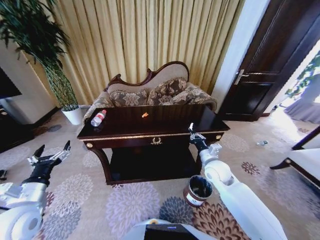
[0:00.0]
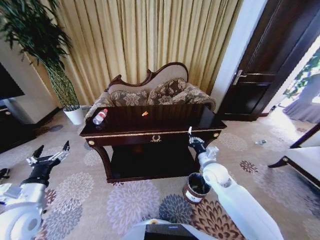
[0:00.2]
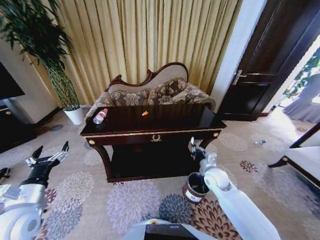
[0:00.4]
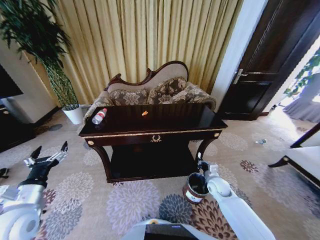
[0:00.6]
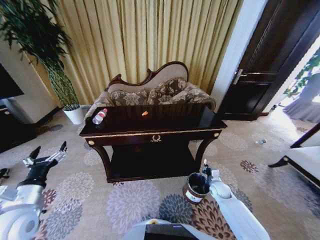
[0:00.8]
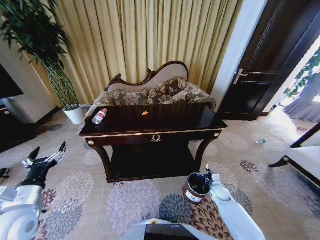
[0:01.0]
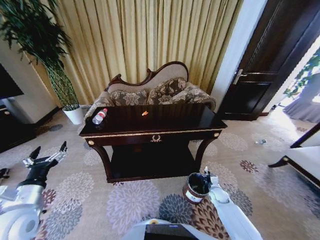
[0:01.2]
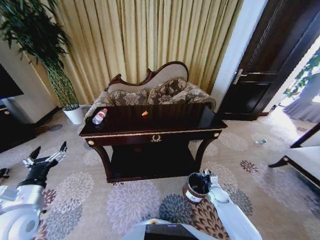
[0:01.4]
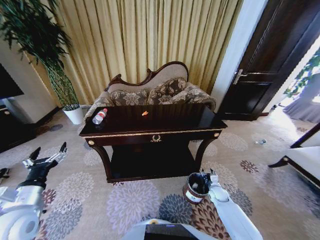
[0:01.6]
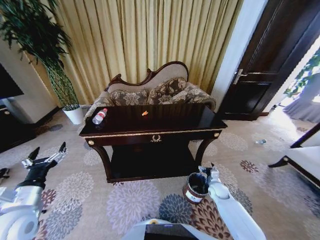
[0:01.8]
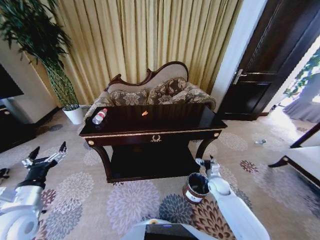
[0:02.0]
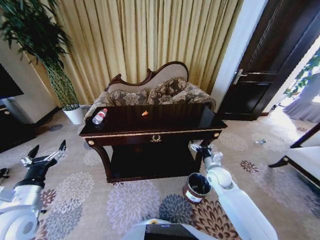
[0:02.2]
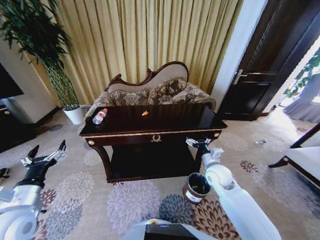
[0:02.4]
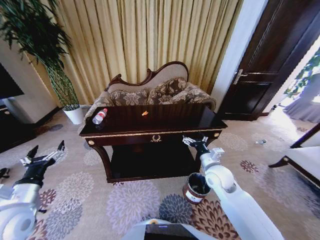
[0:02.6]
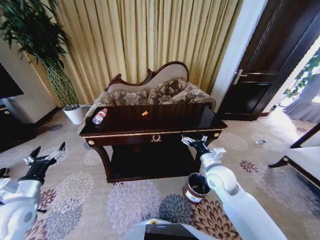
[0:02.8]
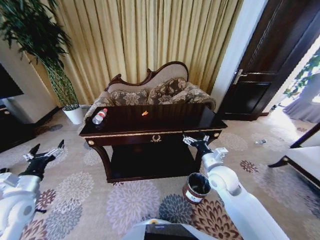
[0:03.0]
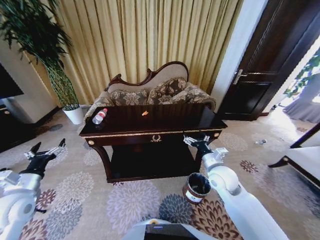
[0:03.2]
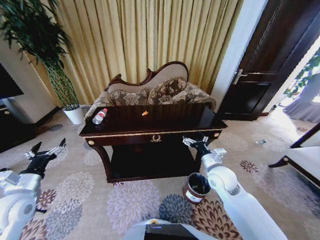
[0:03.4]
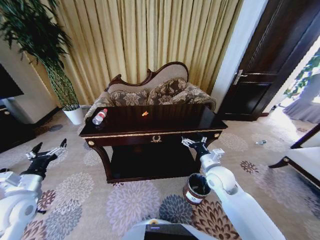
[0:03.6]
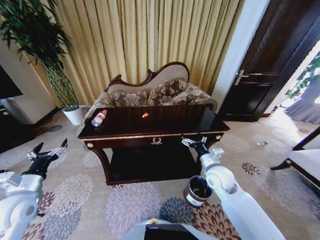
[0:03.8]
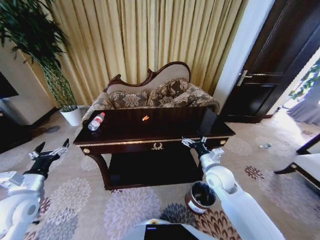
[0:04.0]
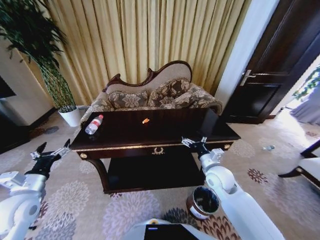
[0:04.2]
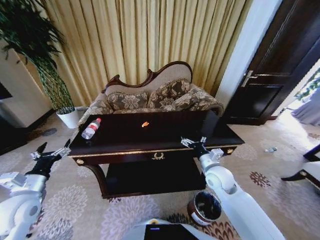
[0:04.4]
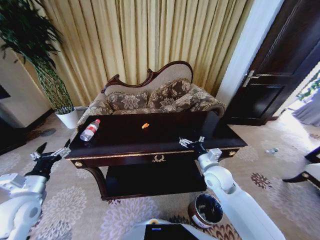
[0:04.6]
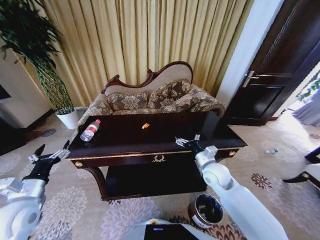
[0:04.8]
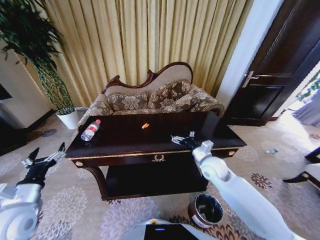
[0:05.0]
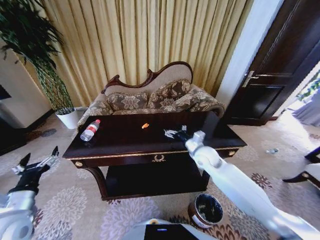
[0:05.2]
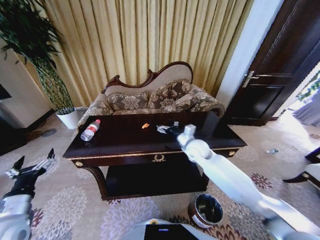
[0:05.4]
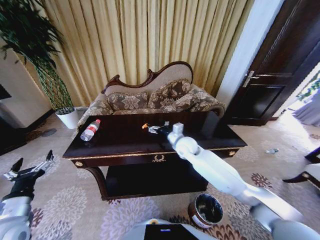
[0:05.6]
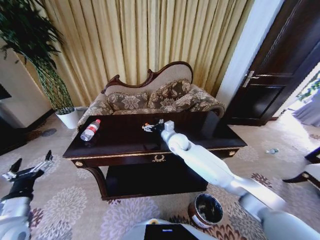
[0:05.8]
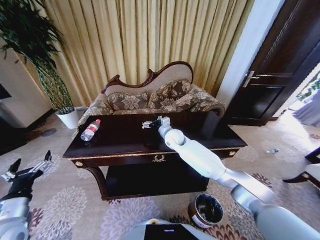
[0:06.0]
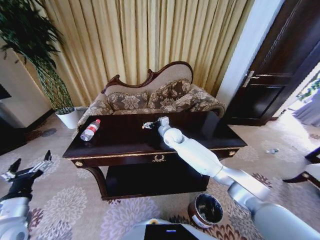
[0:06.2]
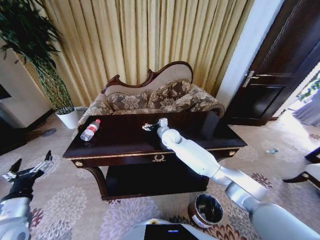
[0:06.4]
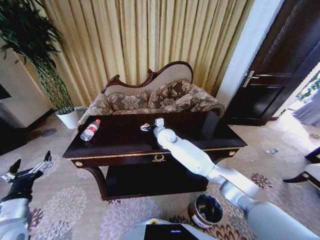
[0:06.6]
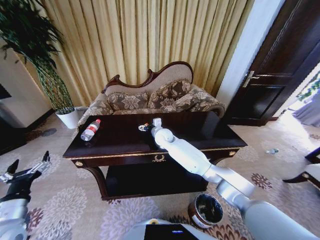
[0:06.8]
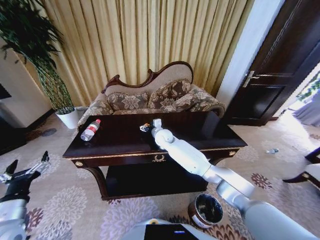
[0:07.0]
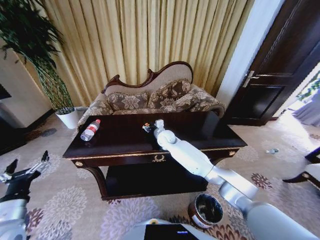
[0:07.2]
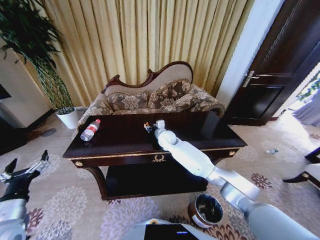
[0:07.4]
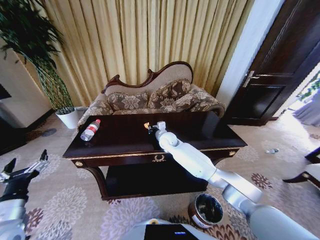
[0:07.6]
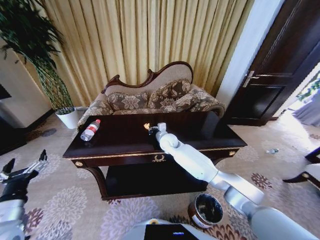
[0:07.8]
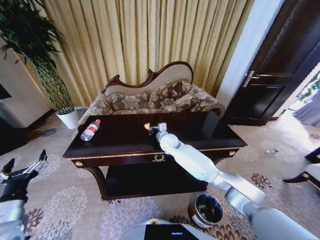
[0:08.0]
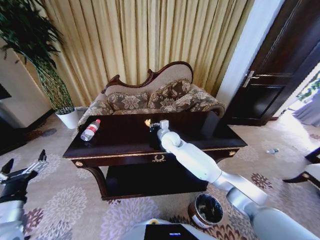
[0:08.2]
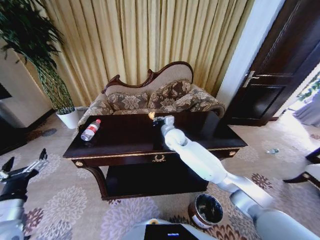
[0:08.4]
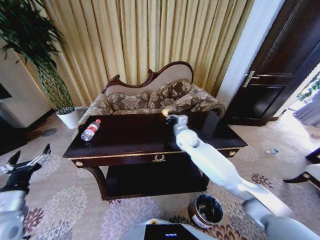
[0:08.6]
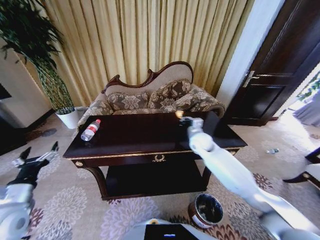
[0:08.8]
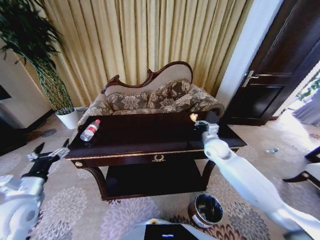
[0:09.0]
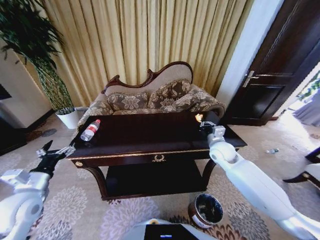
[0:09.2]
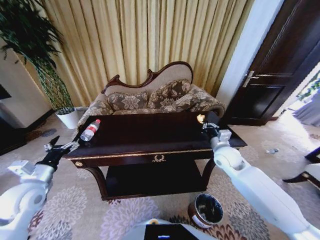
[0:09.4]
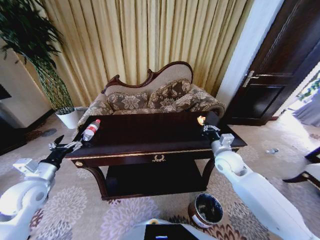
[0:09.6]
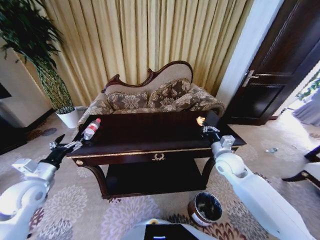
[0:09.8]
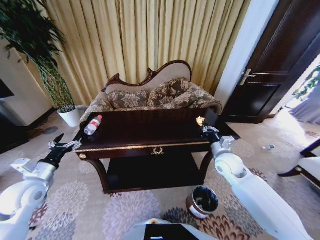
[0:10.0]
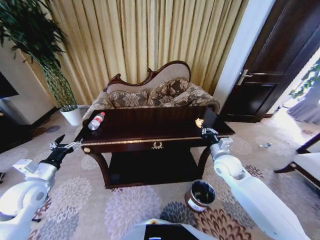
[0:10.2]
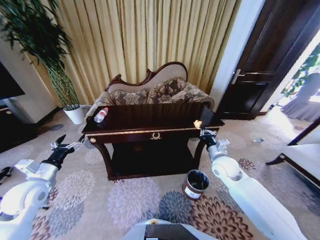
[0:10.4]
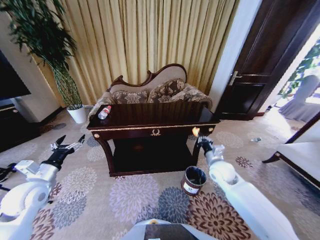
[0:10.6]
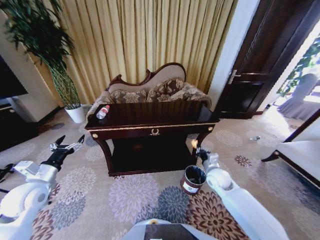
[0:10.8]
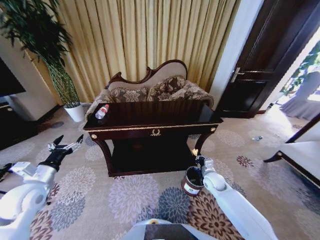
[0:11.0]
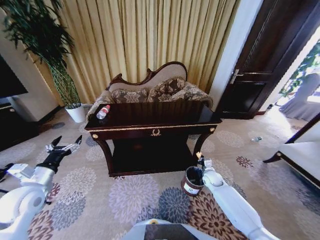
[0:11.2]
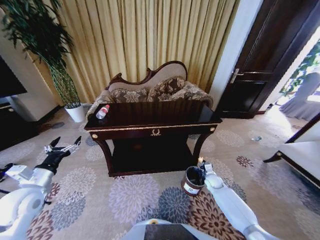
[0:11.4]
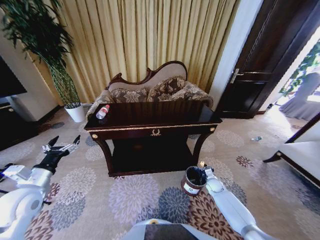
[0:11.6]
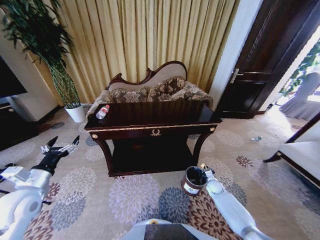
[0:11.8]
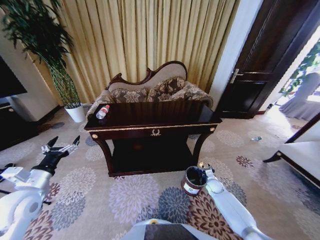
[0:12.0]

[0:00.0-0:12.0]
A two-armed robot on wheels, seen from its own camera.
Task of the whole recording: Move to the front of the table and place the trash on the table into the trash bin.
0:00.0 to 0:01.6: The right gripper shifts approximately 30 cm downward and to the right, and opens.
0:01.6 to 0:03.0: The right gripper shifts about 30 cm upward and to the left, and opens its fingers; the left gripper ends up about 5 cm from where it was.
0:04.4 to 0:06.0: The left gripper goes approximately 5 cm backward; the right gripper is displaced forward and to the left by approximately 25 cm.
0:06.0 to 0:07.6: The right gripper closes its fingers.
0:07.6 to 0:09.0: The right gripper travels to the right by some 20 cm; the left gripper moves forward, about 5 cm.
0:09.0 to 0:10.4: The left gripper heads forward, covering approximately 5 cm, while the right gripper goes approximately 10 cm backward.
0:10.4 to 0:12.0: The right gripper goes about 30 cm downward.

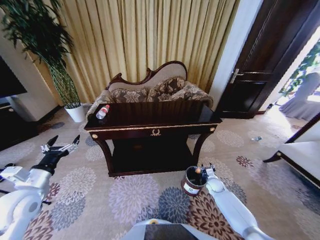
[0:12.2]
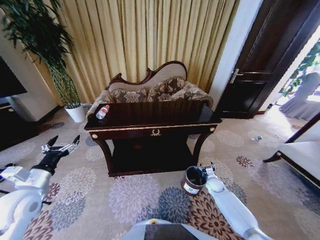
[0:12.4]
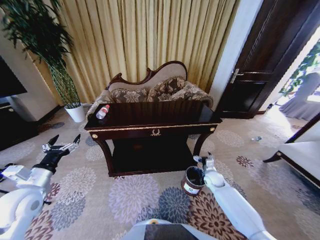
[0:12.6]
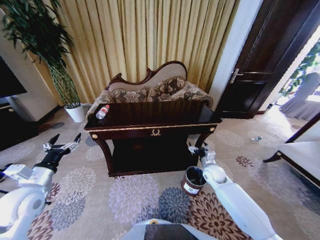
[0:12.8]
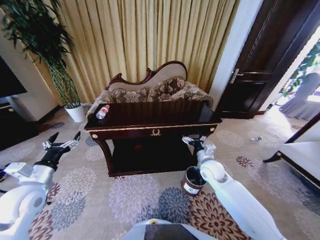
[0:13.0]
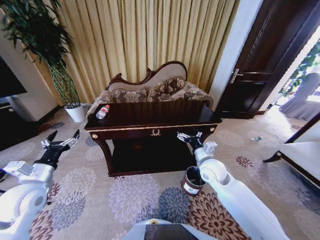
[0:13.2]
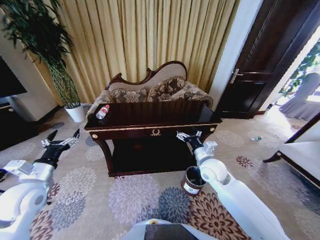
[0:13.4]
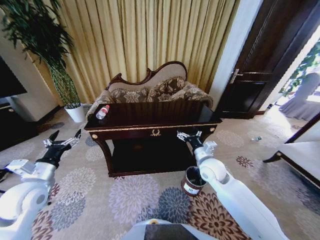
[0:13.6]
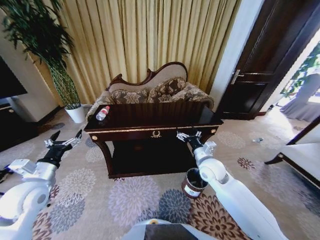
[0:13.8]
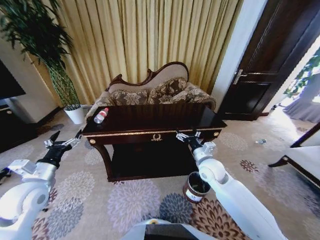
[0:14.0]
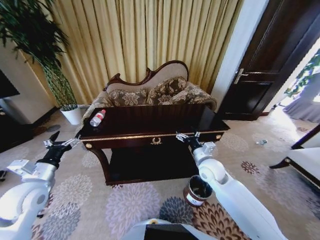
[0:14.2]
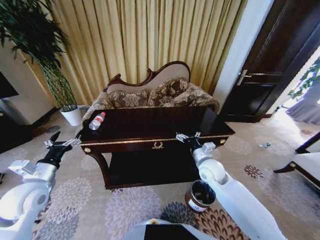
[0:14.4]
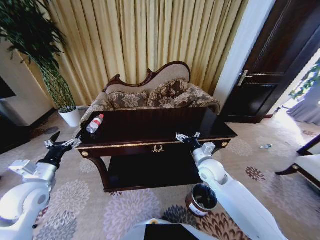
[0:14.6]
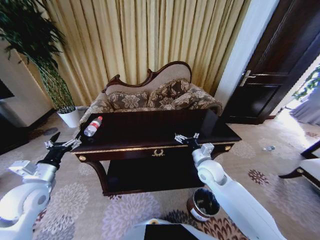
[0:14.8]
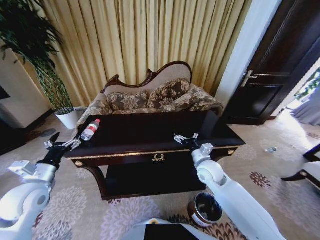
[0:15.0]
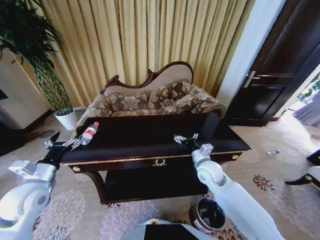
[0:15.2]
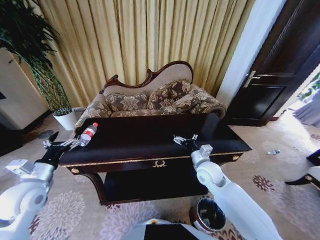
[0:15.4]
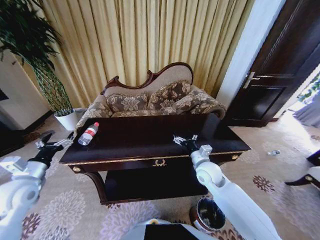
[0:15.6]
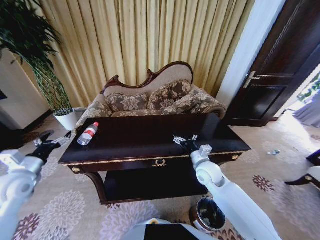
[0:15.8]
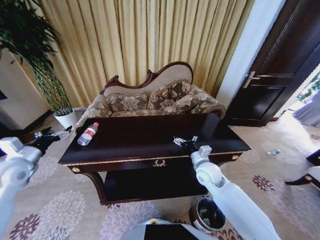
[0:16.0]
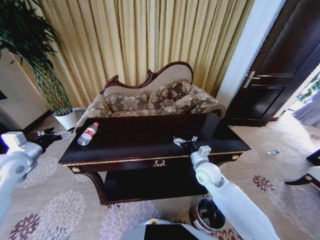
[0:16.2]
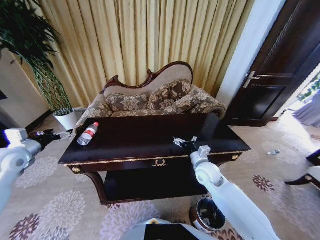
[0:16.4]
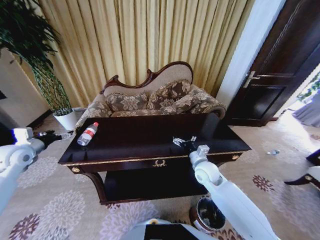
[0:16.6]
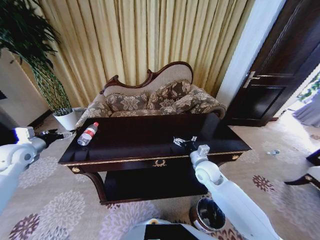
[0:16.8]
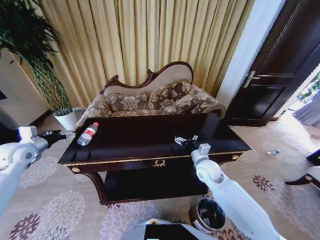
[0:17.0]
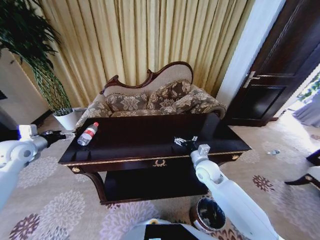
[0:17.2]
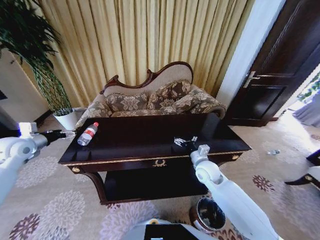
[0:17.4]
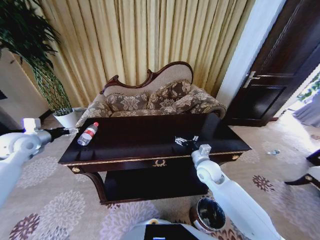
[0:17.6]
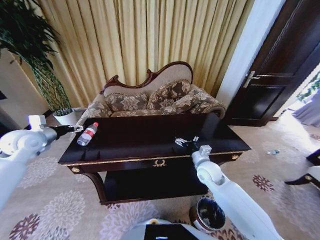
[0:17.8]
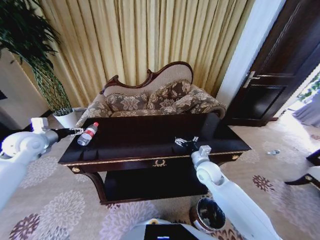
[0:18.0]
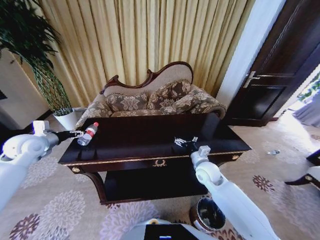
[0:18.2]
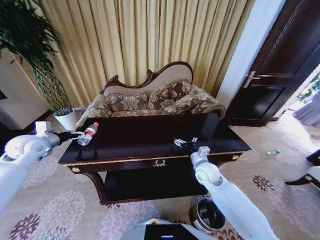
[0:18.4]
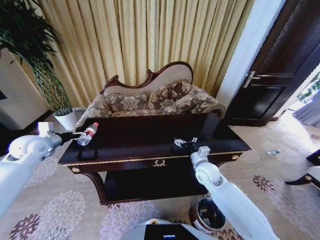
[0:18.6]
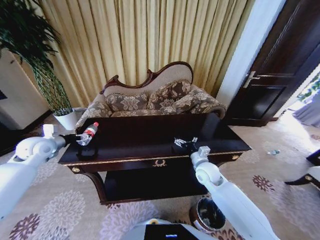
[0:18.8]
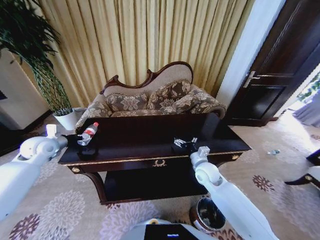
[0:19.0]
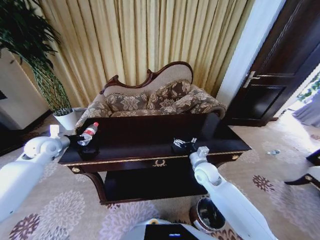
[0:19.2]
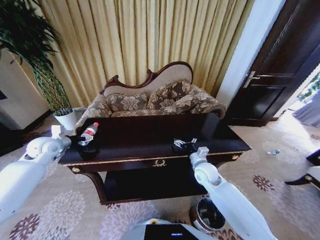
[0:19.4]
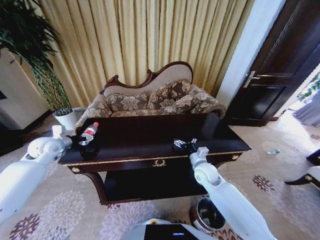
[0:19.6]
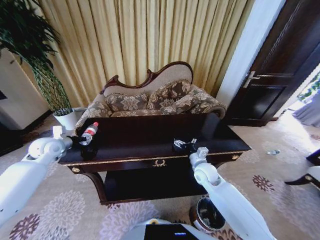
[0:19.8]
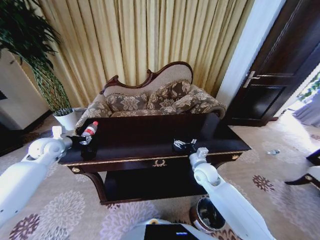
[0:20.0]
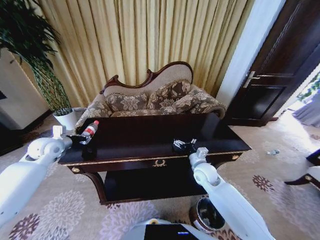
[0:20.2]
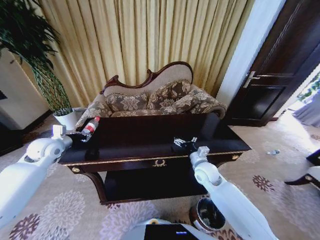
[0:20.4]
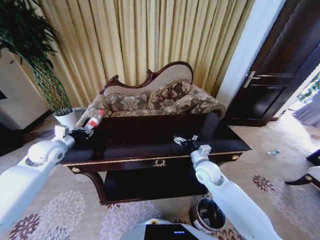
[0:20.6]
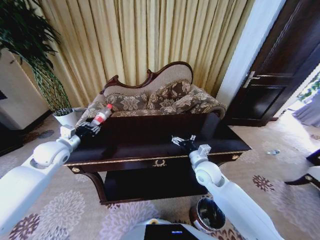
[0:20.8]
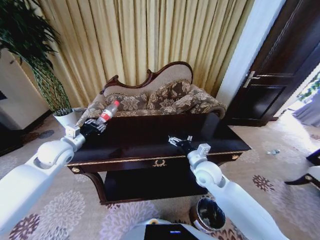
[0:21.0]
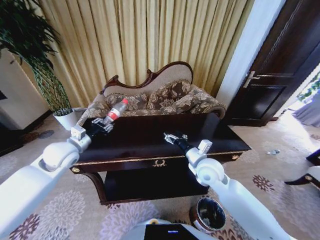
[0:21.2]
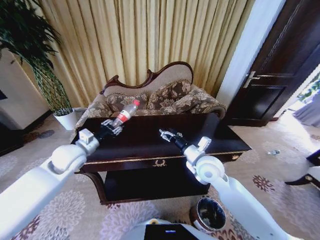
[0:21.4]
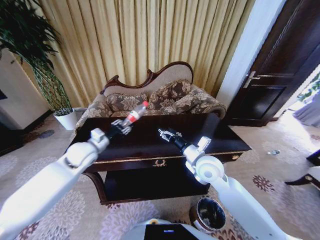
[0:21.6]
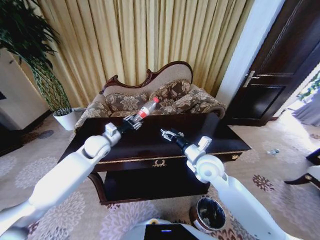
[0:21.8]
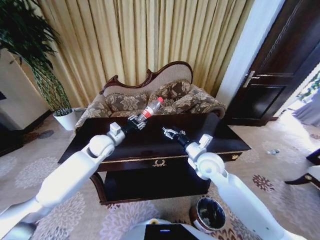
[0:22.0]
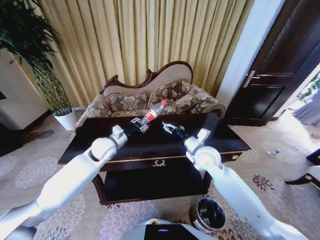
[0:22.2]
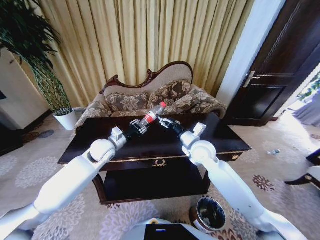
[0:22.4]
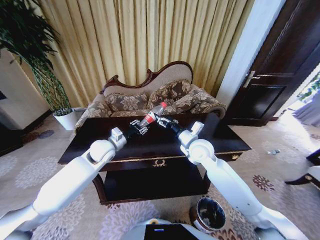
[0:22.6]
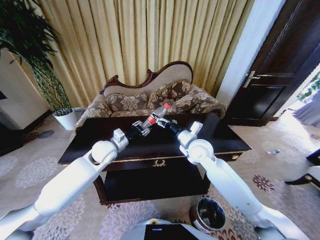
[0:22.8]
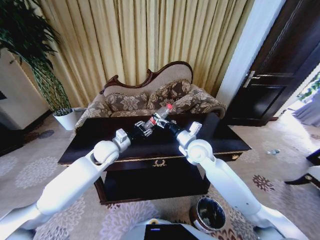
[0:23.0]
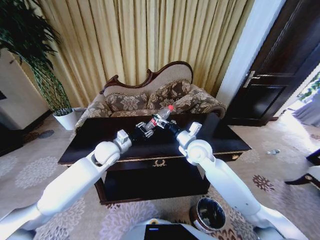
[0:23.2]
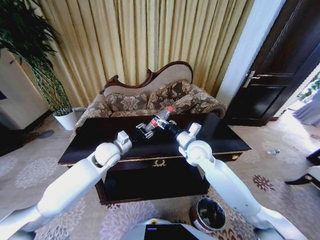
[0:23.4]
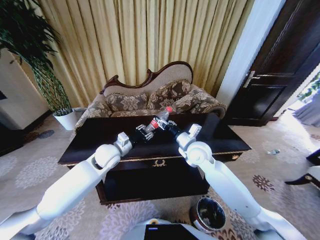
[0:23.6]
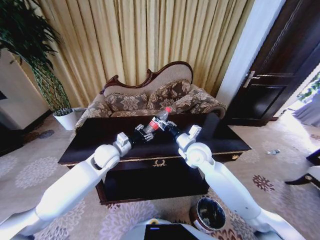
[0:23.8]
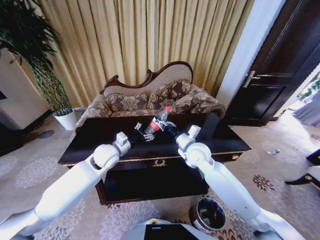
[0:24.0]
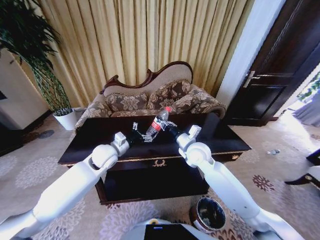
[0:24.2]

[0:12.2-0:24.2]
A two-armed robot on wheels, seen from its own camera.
Task of the whole recording: Move to the front of the table and place the trash on the table into the trash bin.
0:12.2 to 0:13.8: The right gripper shifts some 30 cm upward and to the left, and opens its fingers.
0:15.2 to 0:16.6: The left gripper heads forward and to the left, covering roughly 15 cm.
0:16.6 to 0:18.2: The left gripper ends up approximately 5 cm from where it was.
0:18.2 to 0:19.8: The left gripper shifts by approximately 5 cm, and closes its fingers.
0:19.8 to 0:21.2: The right gripper is displaced upward by about 10 cm. The left gripper is displaced to the right and backward by about 15 cm, and closes up.
0:21.2 to 0:22.6: The right gripper shifts approximately 5 cm forward; the left gripper shifts approximately 10 cm to the right.
0:22.6 to 0:24.2: The left gripper opens. Meanwhile the right gripper closes up.
